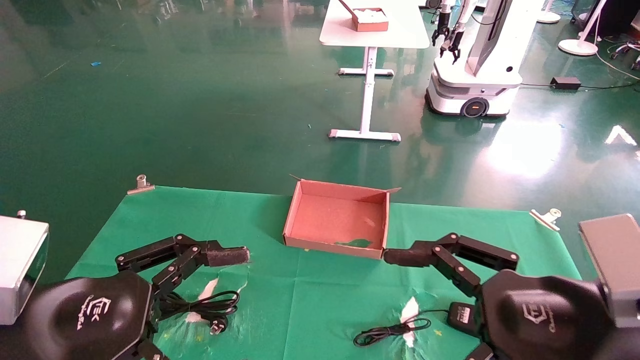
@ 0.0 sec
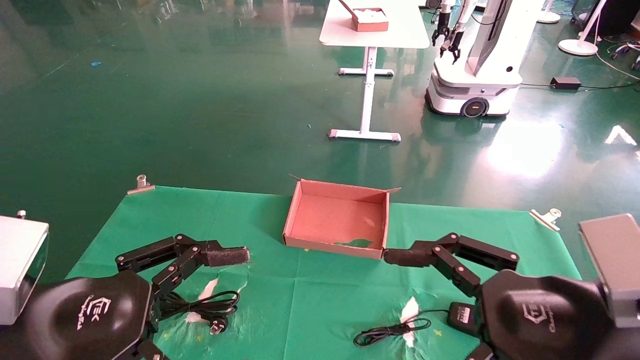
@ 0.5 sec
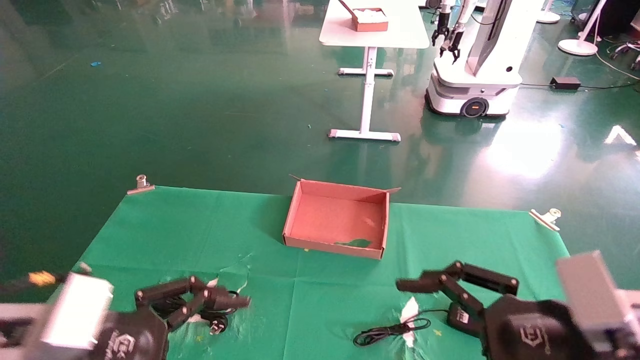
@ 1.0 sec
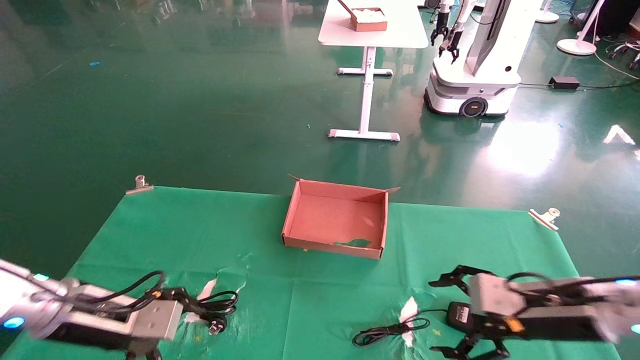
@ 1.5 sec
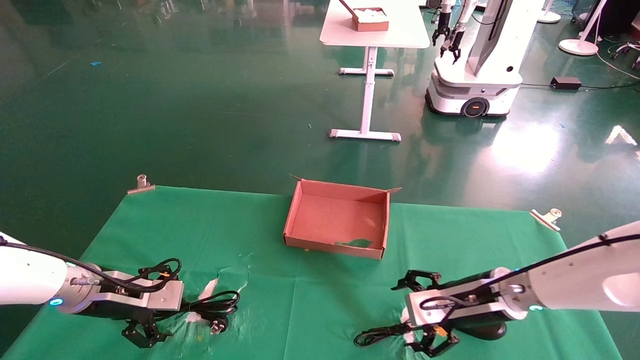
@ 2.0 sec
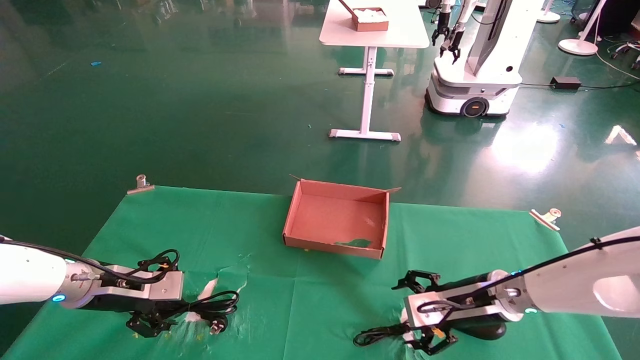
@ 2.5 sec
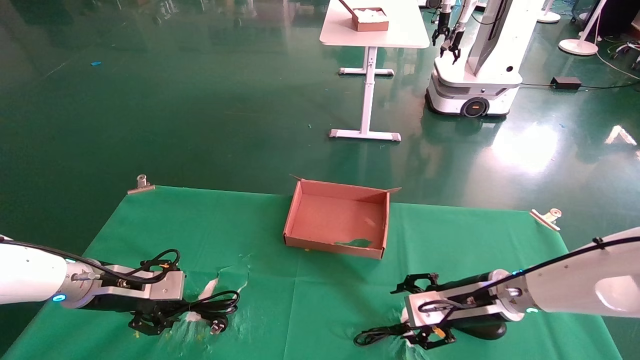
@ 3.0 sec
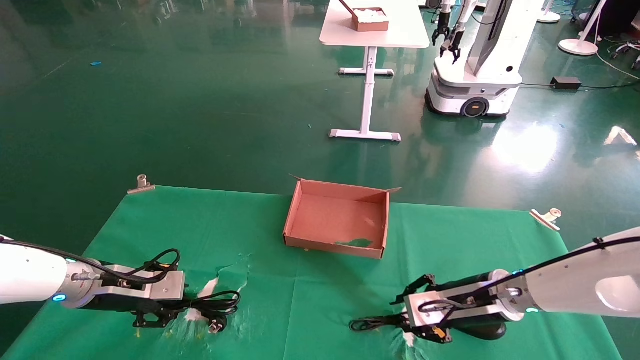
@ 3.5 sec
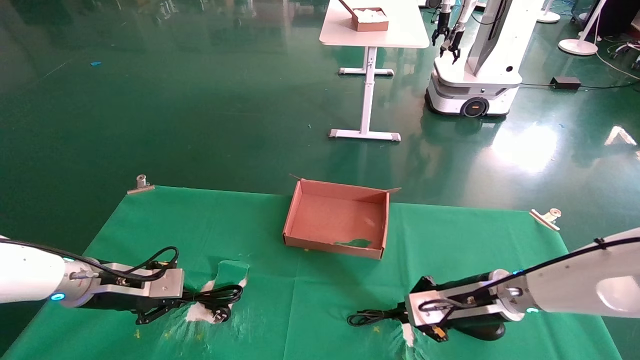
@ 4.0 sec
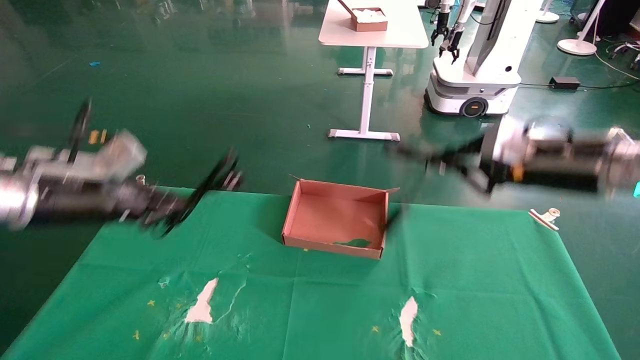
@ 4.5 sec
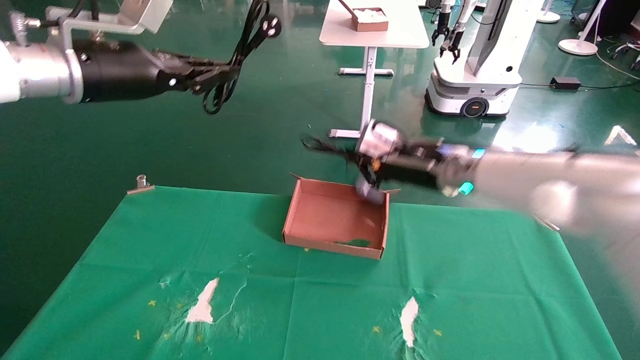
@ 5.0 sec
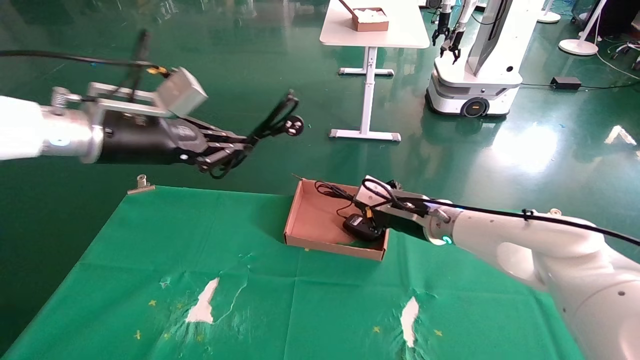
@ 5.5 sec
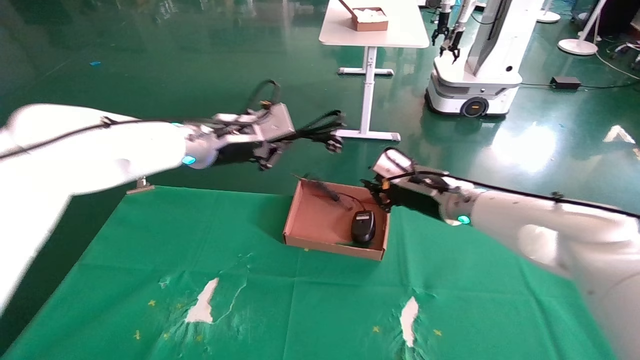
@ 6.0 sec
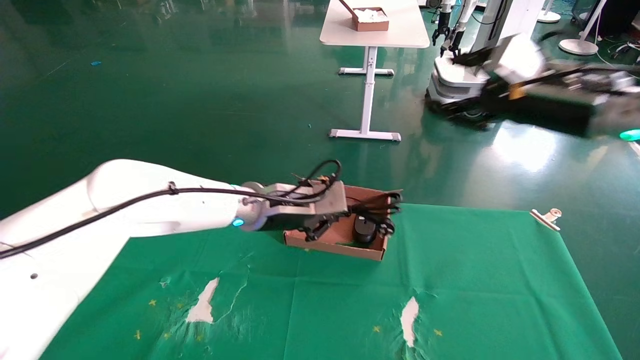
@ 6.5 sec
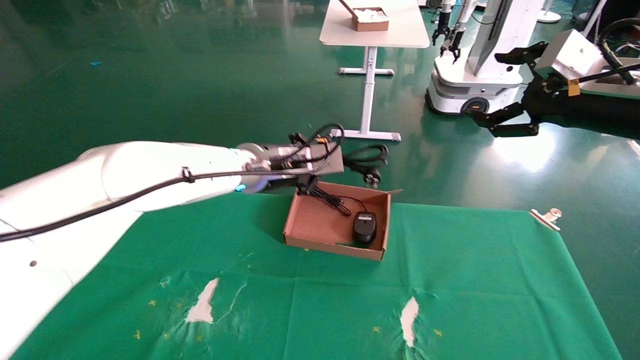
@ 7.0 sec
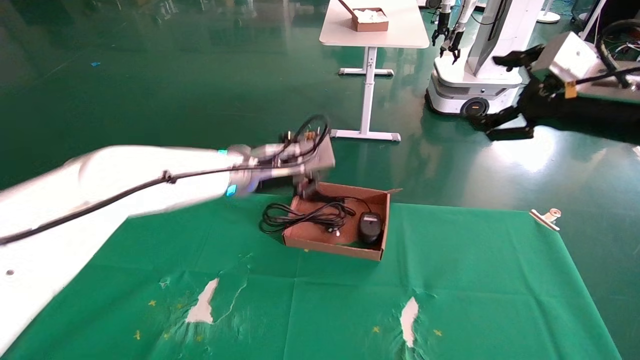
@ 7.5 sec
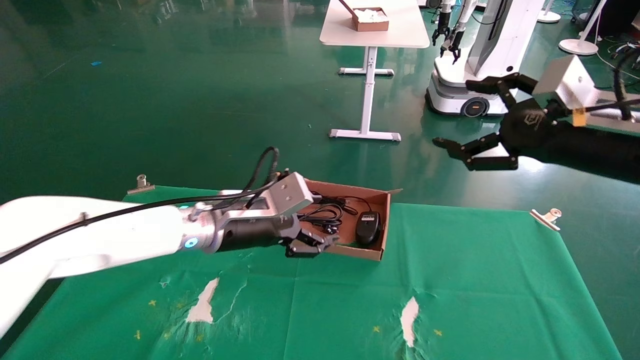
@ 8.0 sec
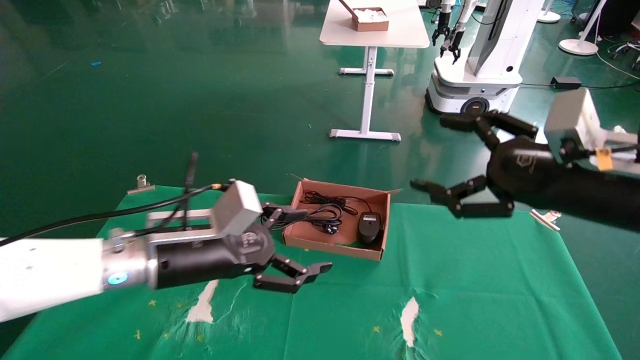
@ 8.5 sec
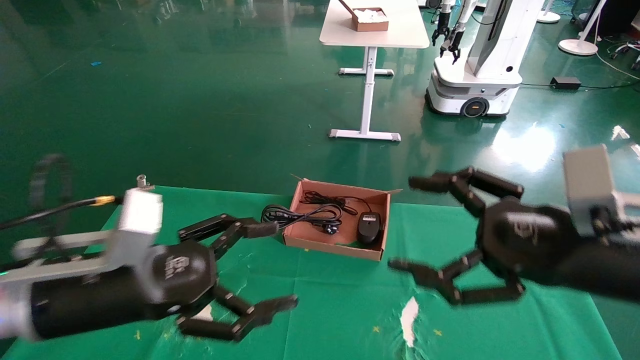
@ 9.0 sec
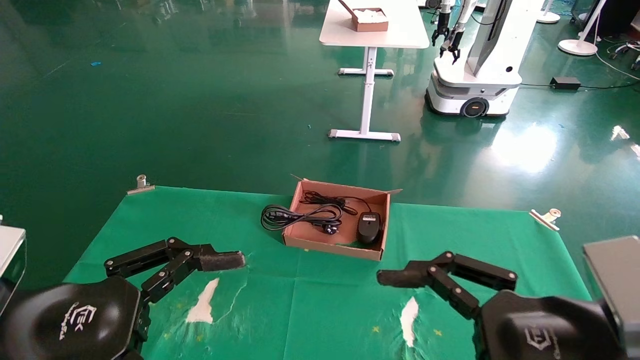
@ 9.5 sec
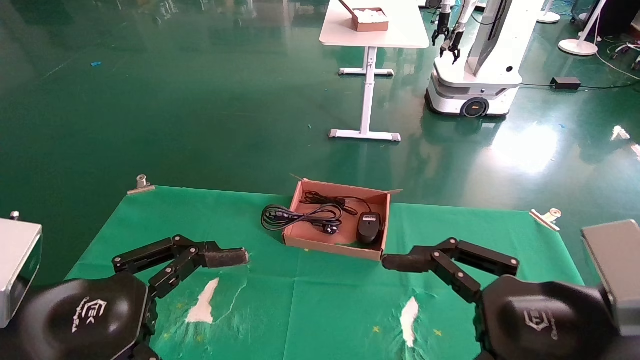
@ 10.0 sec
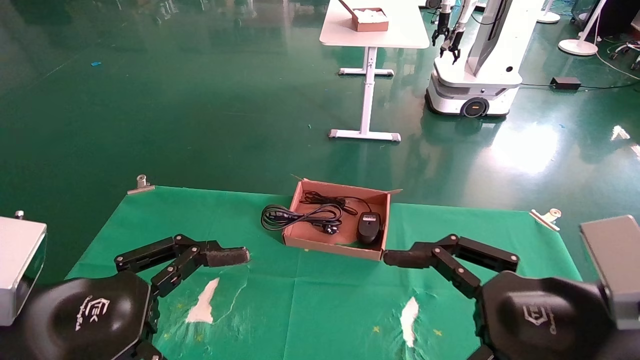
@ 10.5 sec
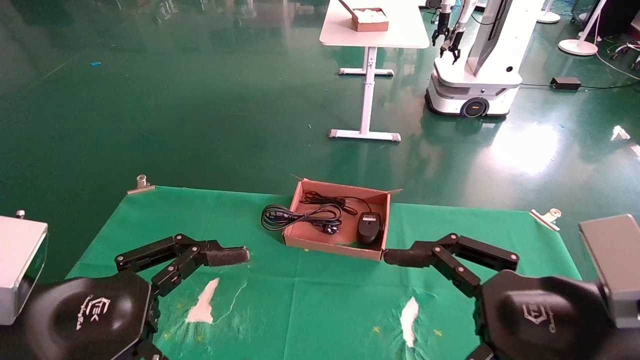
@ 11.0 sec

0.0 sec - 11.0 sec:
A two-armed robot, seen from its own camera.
Step, 1.5 sec - 3.5 sec: Grab and lift both the mouse and power cord from the accessory packaging area at the same time.
Step, 4.0 sec - 7.5 sec: Place the mouse and power cord into the box.
0.0 sec - 2.0 sec: Both grippers travel together forward and downward, about 25 cm.
2.0 sec - 3.5 sec: The right gripper closes. The left gripper closes.
3.5 sec - 5.5 sec: The left gripper travels upward and to the right by roughly 25 cm, and closes. Meanwhile the right gripper goes roughly 15 cm upward, to the left and forward, and closes.
5.5 sec - 7.5 sec: The right gripper goes about 30 cm to the right, upward and backward, and opens its fingers; the left gripper is displaced to the right and downward by some 20 cm.
7.5 sec - 9.0 sec: The left gripper heads backward and to the left, covering about 25 cm, and opens. The right gripper travels backward, downward and to the left by about 20 cm.
9.0 sec - 11.0 sec: The left gripper goes approximately 5 cm backward. The right gripper shifts by approximately 5 cm.

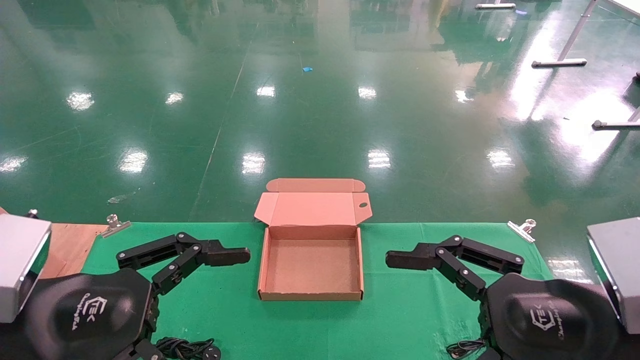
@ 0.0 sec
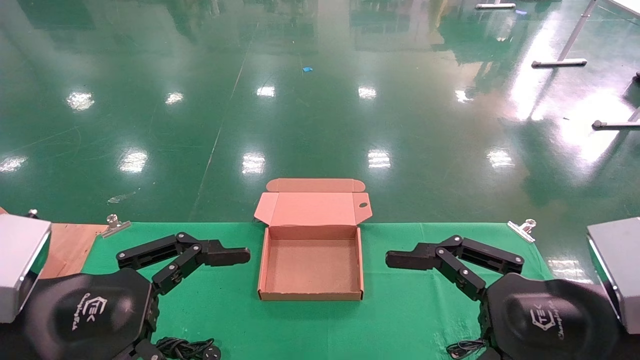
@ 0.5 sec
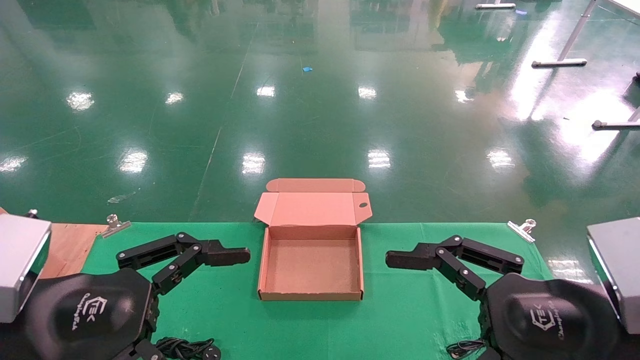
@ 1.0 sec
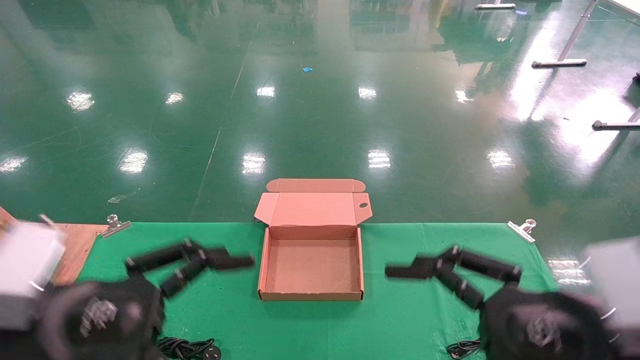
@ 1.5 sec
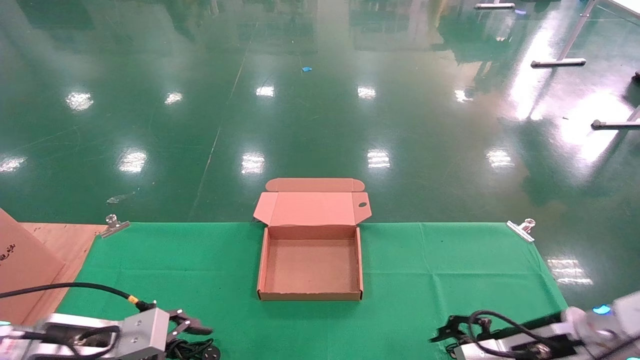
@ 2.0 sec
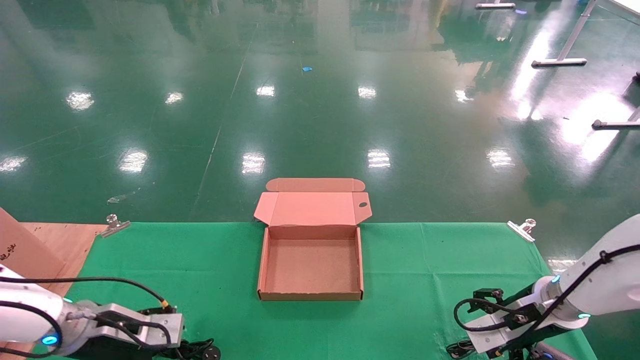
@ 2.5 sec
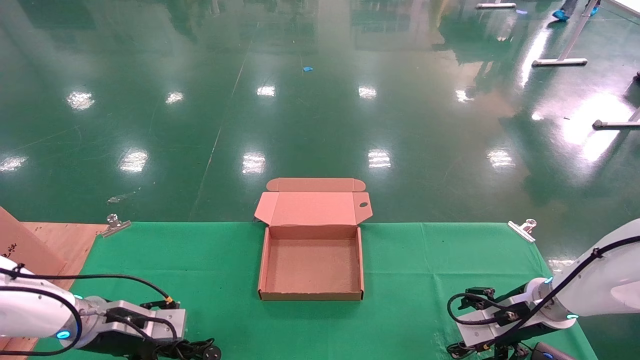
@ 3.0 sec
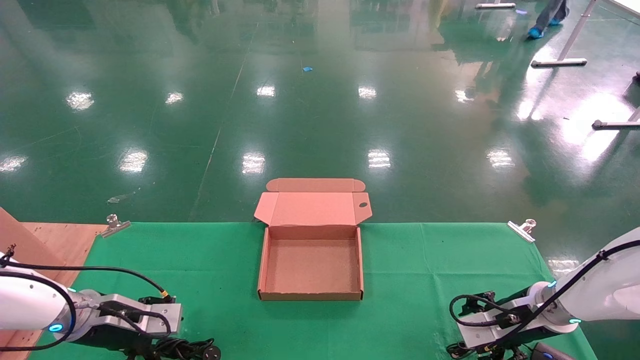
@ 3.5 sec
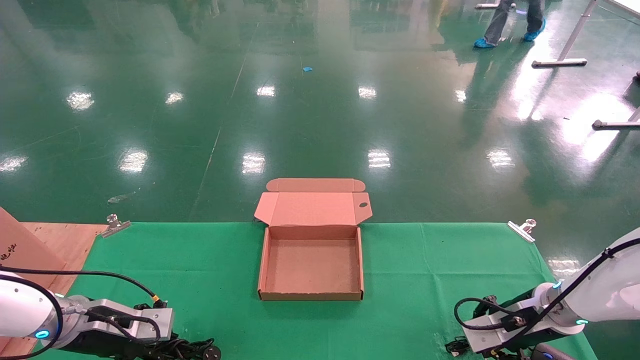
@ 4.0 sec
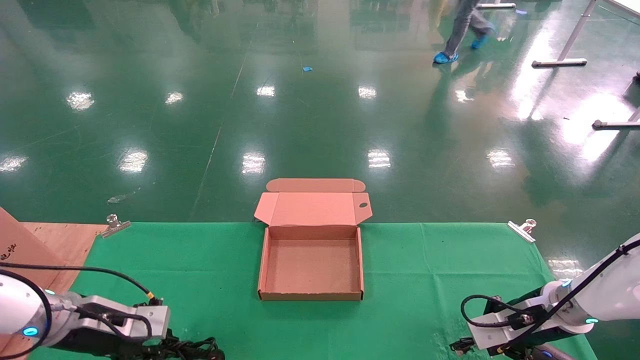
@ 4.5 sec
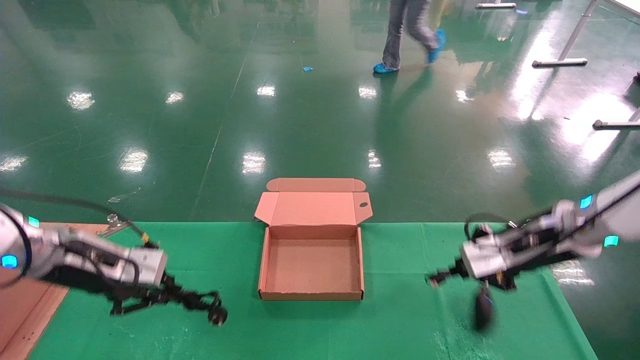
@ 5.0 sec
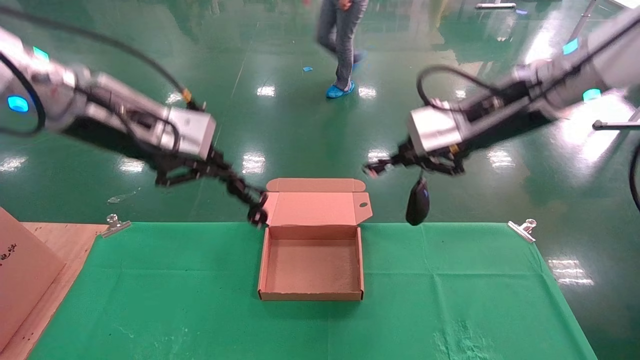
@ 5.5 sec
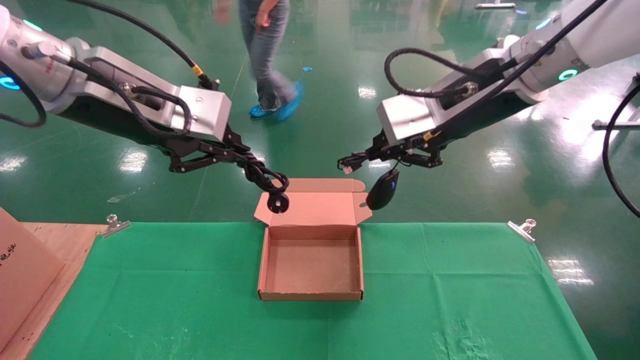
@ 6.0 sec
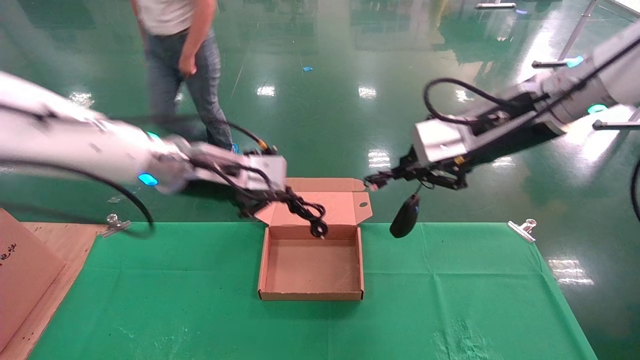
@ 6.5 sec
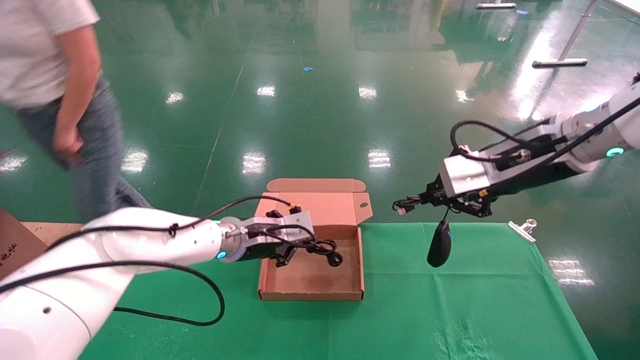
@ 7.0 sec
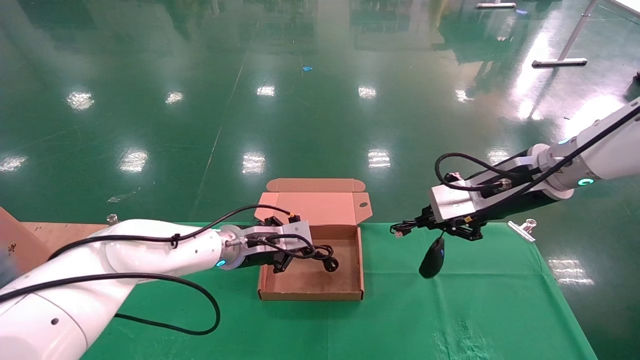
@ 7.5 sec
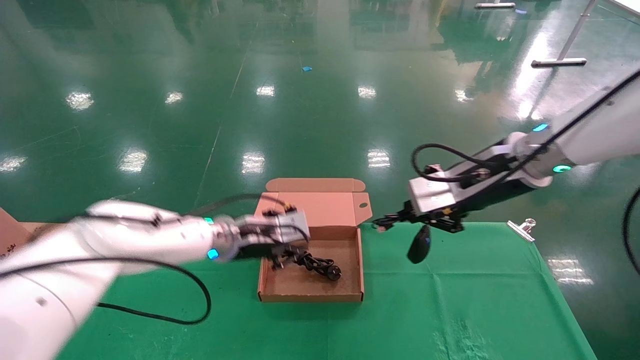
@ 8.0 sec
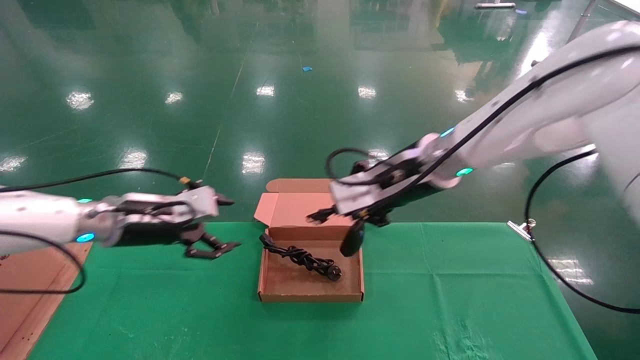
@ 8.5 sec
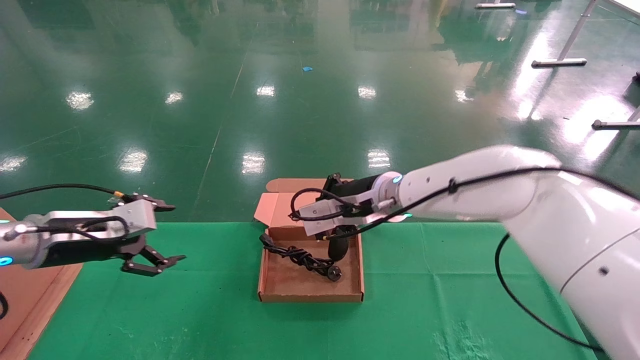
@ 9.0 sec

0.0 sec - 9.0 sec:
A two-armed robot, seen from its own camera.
Step, 2.0 sec - 5.0 sec: Grab and lift both the mouse and power cord from the accessory packaging area at the same time.
0.0 sec - 2.0 sec: Both grippers travel together forward and downward, about 15 cm.
2.0 sec - 4.5 sec: Both grippers move forward, roughly 10 cm. The left gripper closes its fingers. Meanwhile the right gripper closes.
4.5 sec - 7.0 sec: The right gripper travels upward by about 25 cm. Meanwhile the left gripper travels to the right by roughly 25 cm, and goes upward and returns, approximately 30 cm each way.
7.0 sec - 9.0 sec: The right gripper travels to the left, downward and forward by some 20 cm. The left gripper heads to the left, covering some 25 cm, and opens up.
